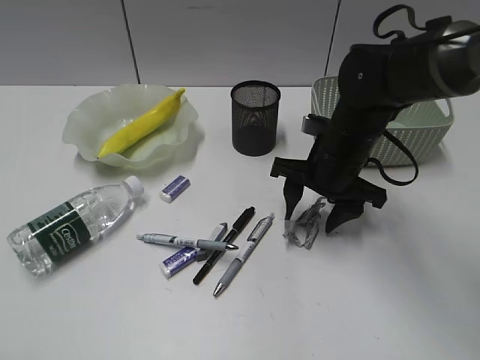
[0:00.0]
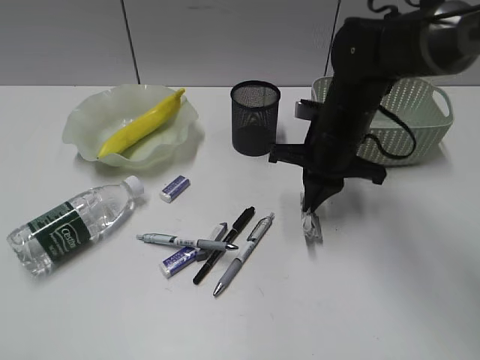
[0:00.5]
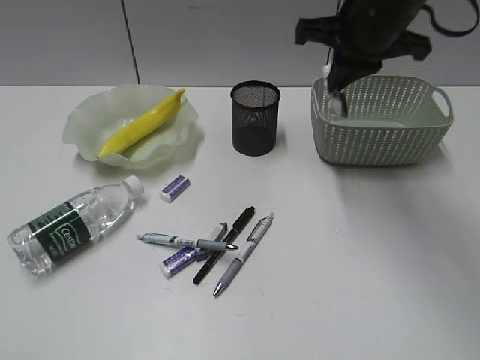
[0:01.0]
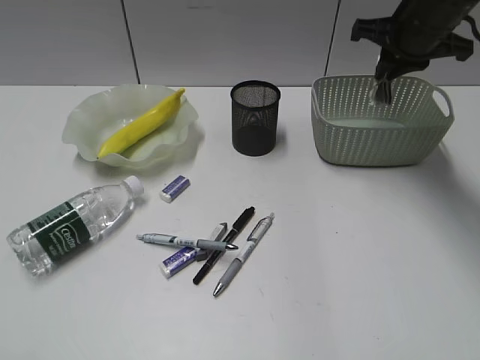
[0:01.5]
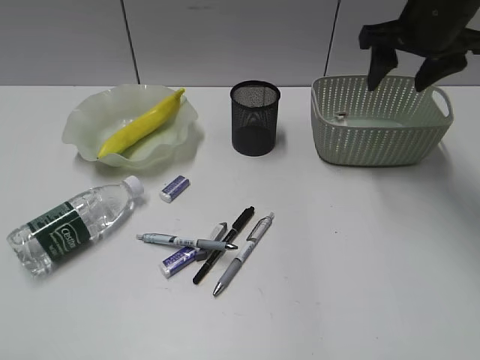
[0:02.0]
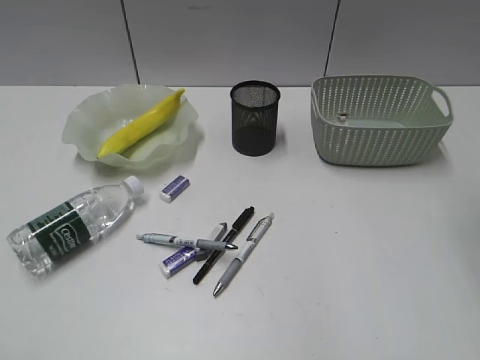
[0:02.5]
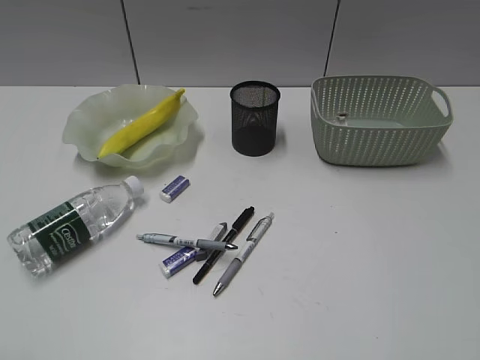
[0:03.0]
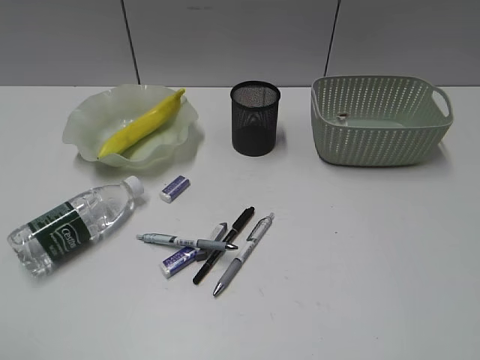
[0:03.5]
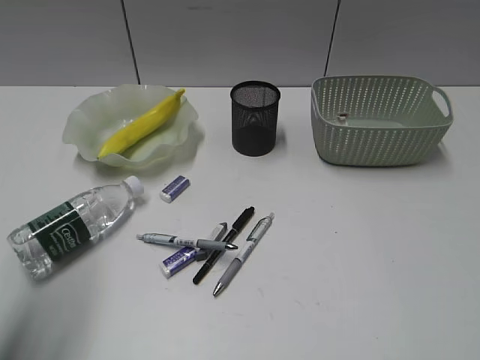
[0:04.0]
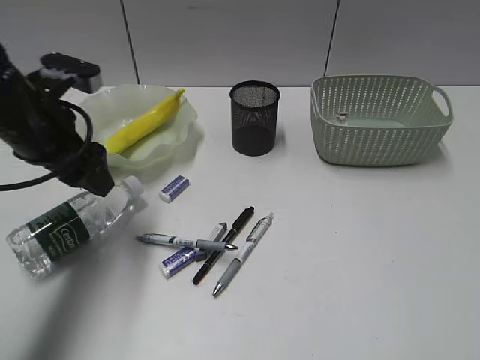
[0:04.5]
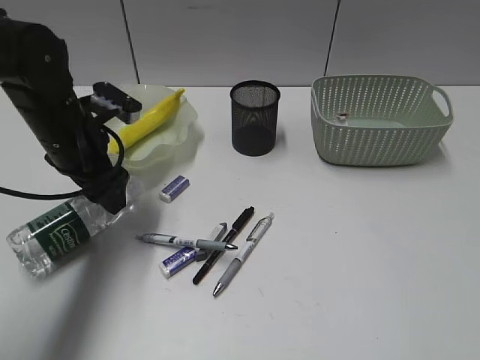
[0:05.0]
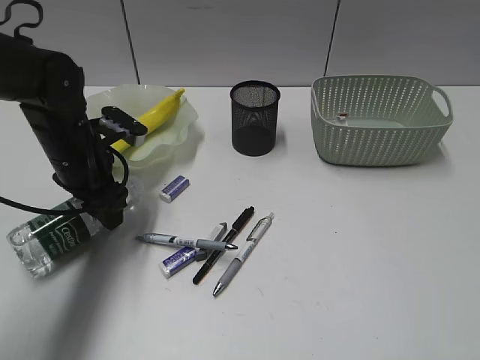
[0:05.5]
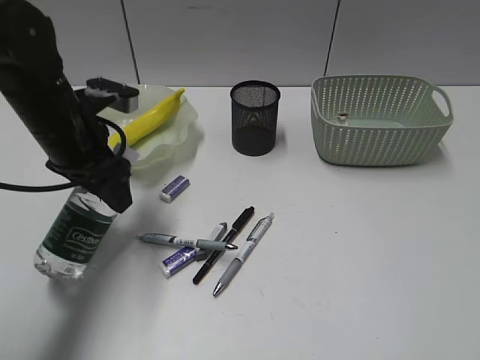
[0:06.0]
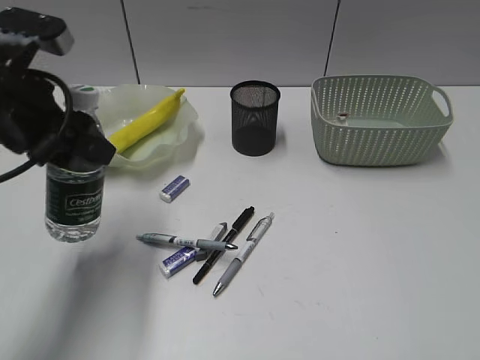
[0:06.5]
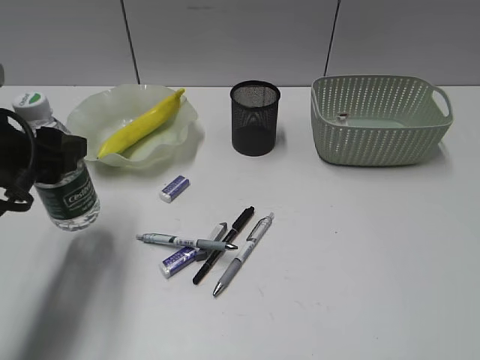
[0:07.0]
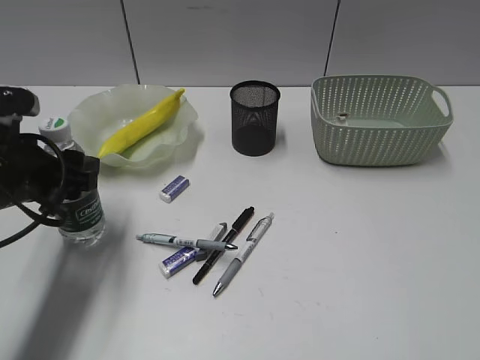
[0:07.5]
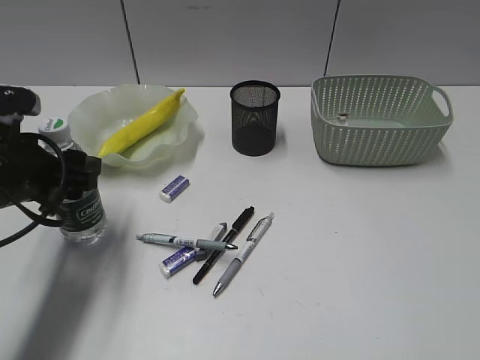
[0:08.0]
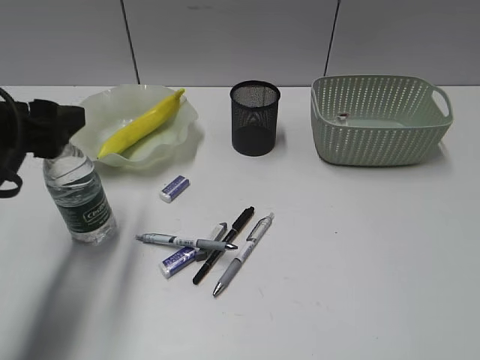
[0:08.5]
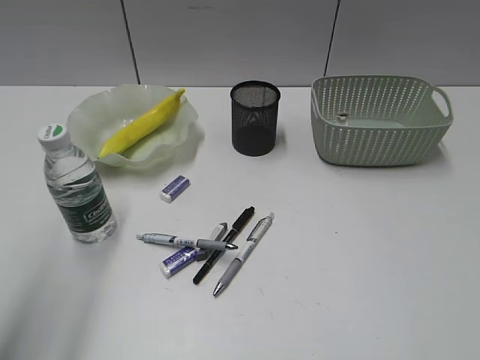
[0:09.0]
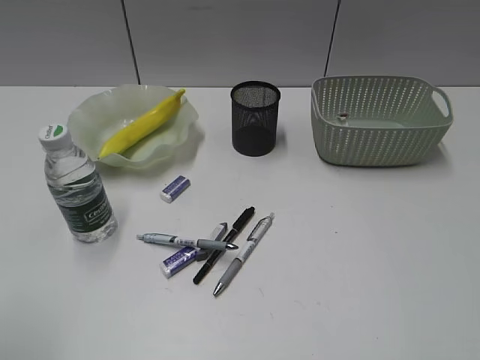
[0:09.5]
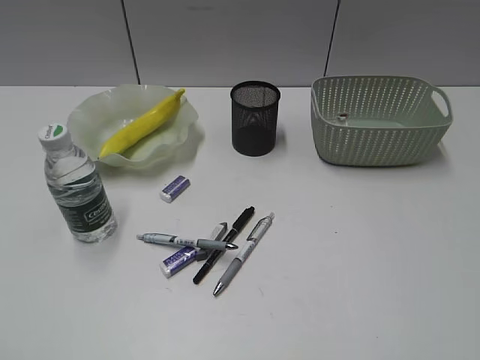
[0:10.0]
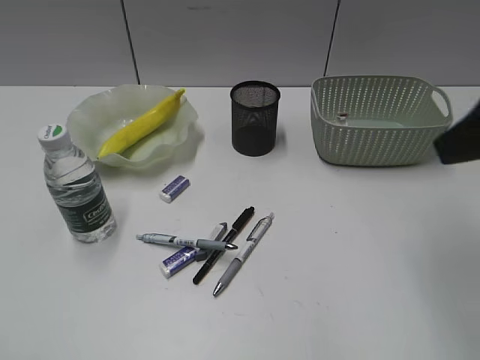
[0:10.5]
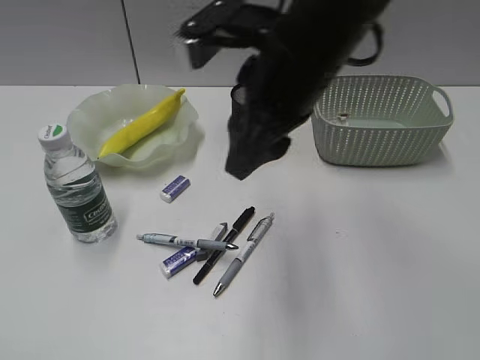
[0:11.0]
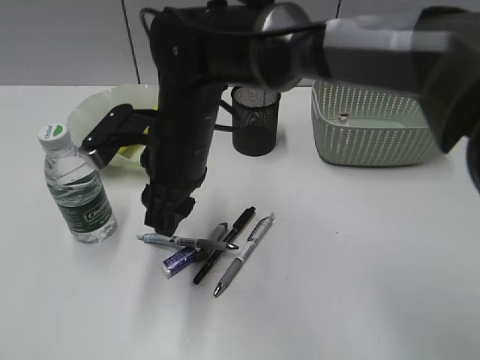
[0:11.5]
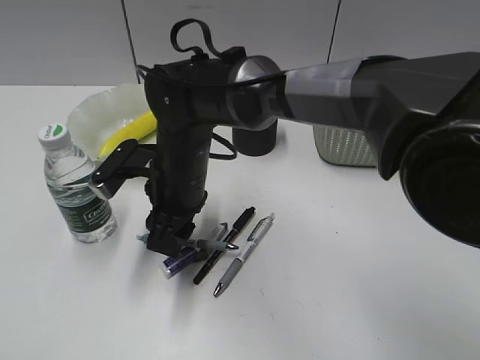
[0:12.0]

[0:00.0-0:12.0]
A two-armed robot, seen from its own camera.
Step, 0:00.5 to 0:01.5: Place the waste paper in the basket with right gripper.
Step, 0:02.0 to 0:05.0: Grasp the bottle with left gripper.
Step, 0:05.5 to 0:08.5: Stand the bottle with left gripper.
0:00.0 to 0:02.0: The right gripper heads upward, to the right and forward, covering approximately 20 cm, and closes, then reopens.
0:02.0 to 0:04.0: The left gripper is displaced forward by approximately 15 cm. Meanwhile the right gripper travels backward by some 40 cm, and closes.
0:04.0 to 0:06.0: The left gripper heads forward, downward and to the right, covering approximately 25 cm.
0:06.0 to 0:08.0: The left gripper travels backward by approximately 10 cm.
0:08.0 to 0:10.0: The left gripper goes about 30 cm backward and upward.
0:10.0 to 0:12.0: The right gripper shifts some 50 cm to the left, forward and downward.

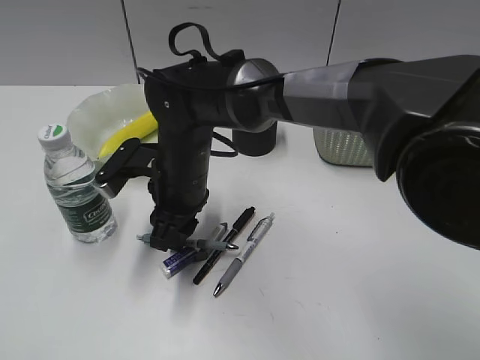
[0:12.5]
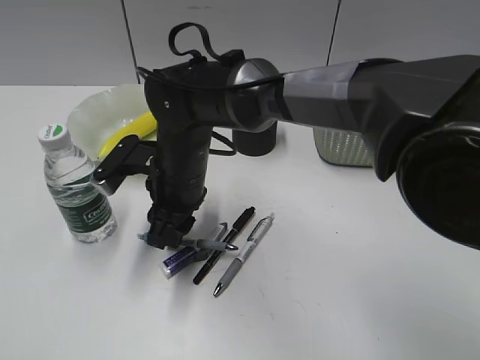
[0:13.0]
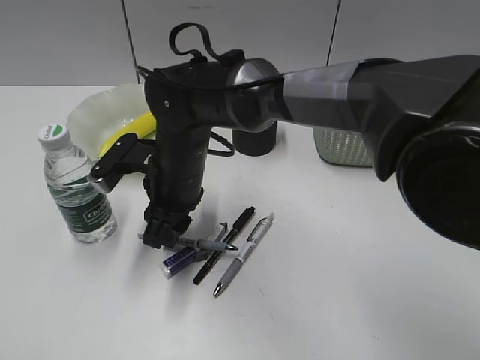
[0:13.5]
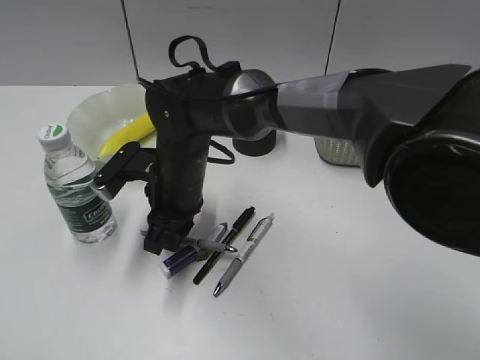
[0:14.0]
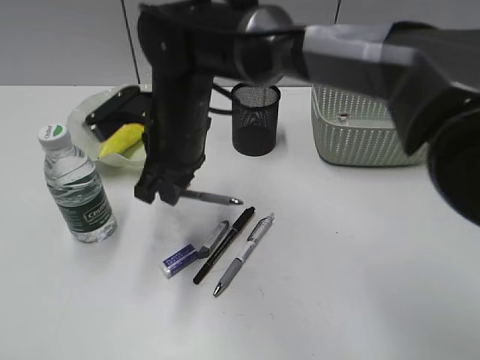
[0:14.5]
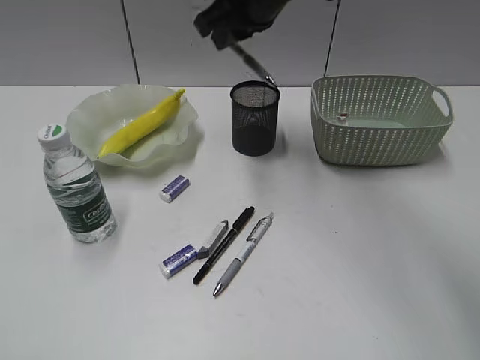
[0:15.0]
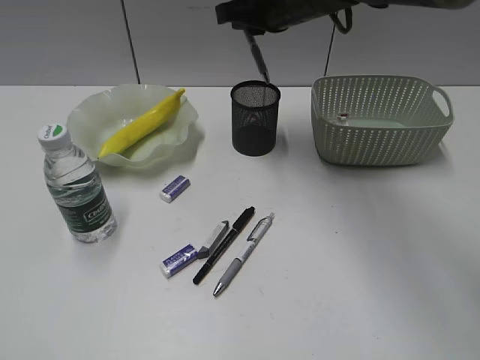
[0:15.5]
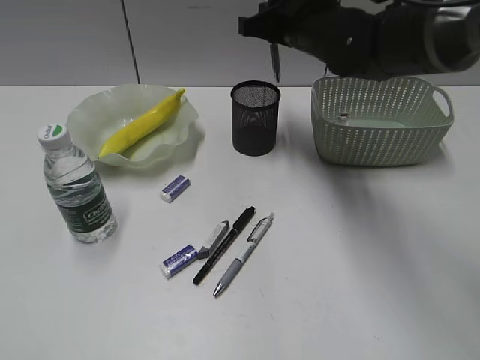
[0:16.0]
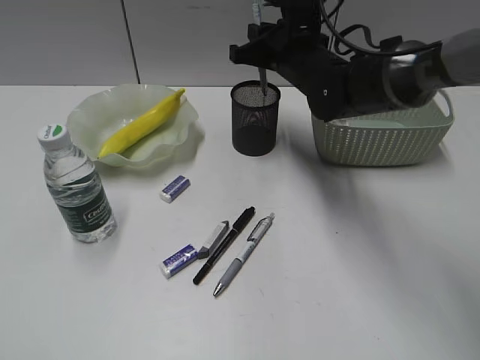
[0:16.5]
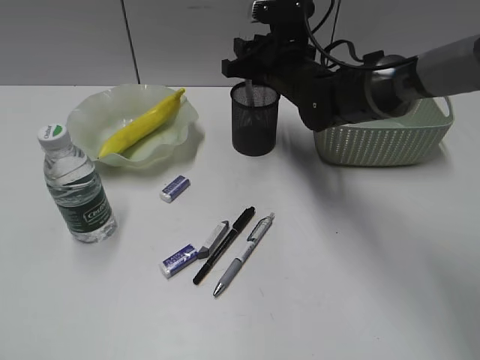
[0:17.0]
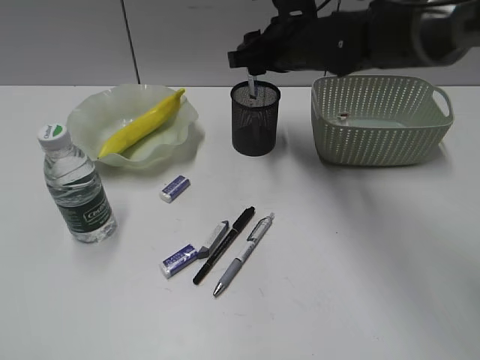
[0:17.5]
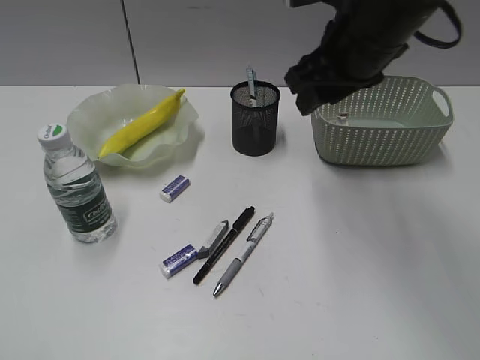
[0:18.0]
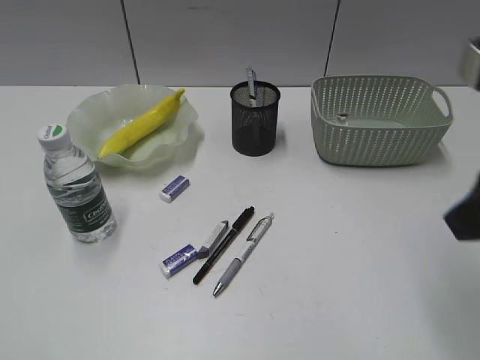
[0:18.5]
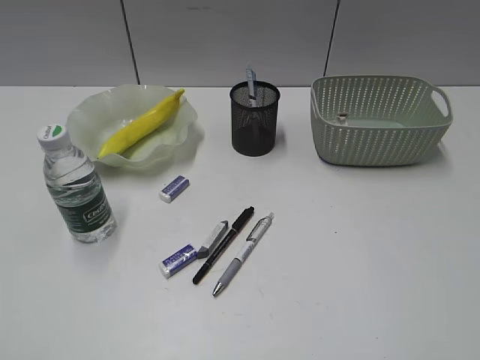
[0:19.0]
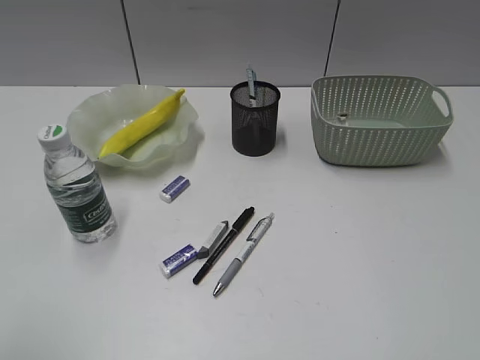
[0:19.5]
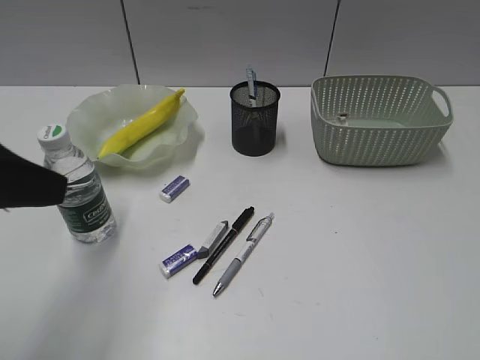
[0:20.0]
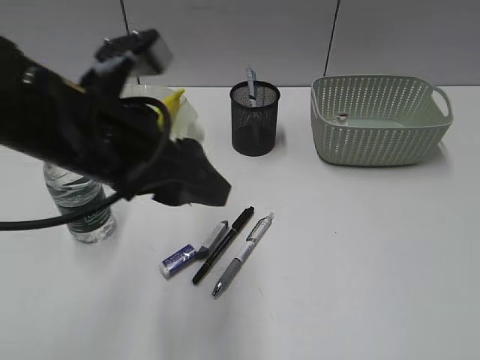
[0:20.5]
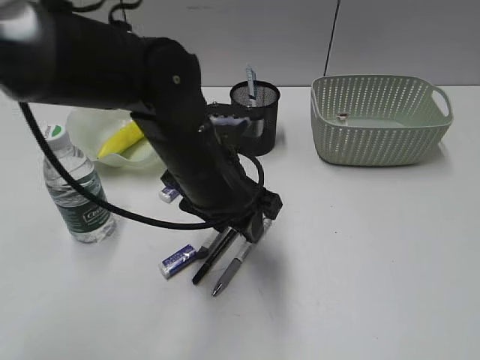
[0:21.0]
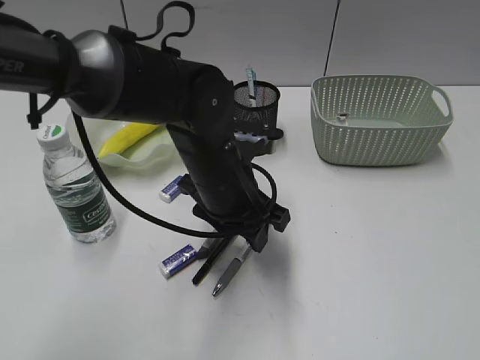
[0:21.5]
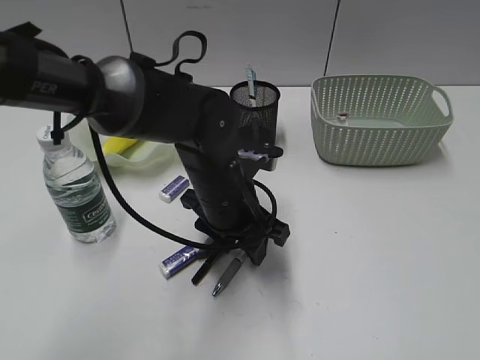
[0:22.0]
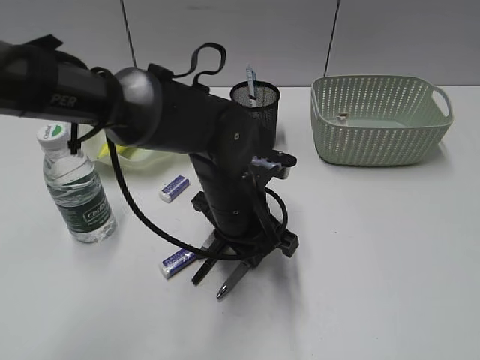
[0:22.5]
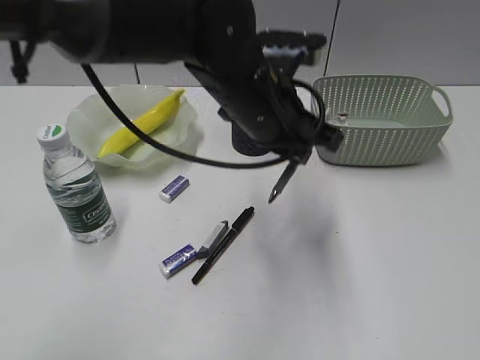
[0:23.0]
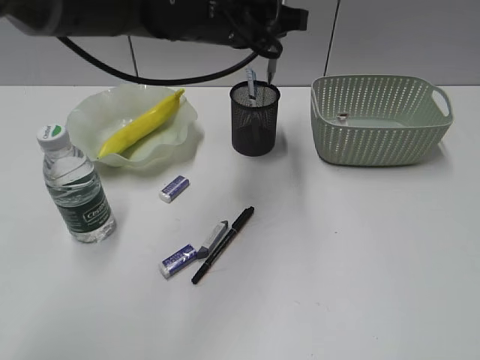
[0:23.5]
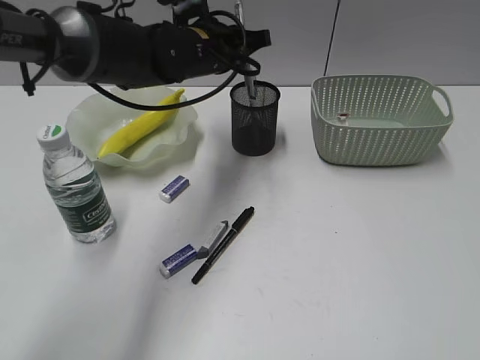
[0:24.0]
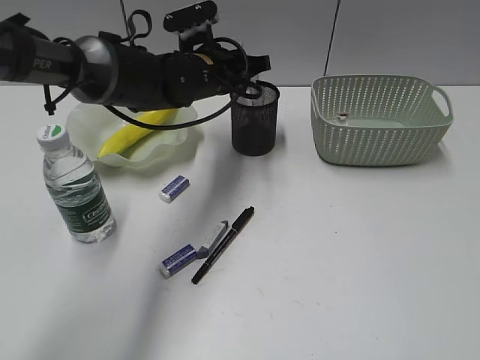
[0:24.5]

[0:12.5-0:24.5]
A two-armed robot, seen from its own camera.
Step, 0:14.5 to 0:17.0: Place the blue pen in pen holder with right gripper.
Step, 0:17.5 to 0:22.5: Grasp the gray pen with left gripper.
0:12.5 to 0:14.5: The right gripper closes its fingers.
0:14.5 to 0:16.5: The right gripper travels to the right and forward by some 20 cm.
0:16.5 to 0:18.5: The right gripper heads backward, to the right and upward, covering some 30 cm, and opens its fingers.
0:18.5 to 0:20.5: The right gripper heads backward and to the right, covering roughly 20 cm, while the left gripper moves forward and to the right, about 30 cm.
0:20.5 to 0:22.5: The left gripper heads downward, to the right and forward, covering about 20 cm, and closes.
0:22.5 to 0:24.5: The left gripper moves forward, about 15 cm.

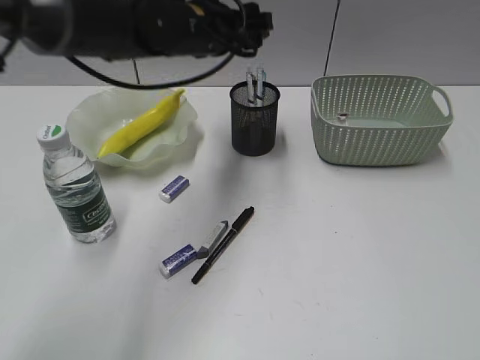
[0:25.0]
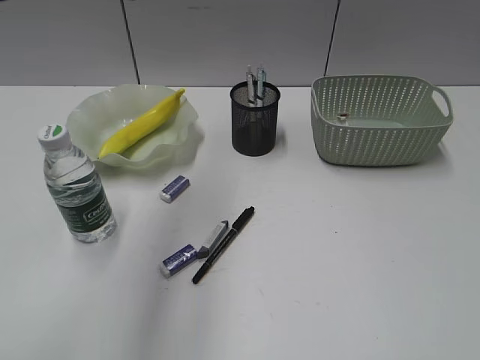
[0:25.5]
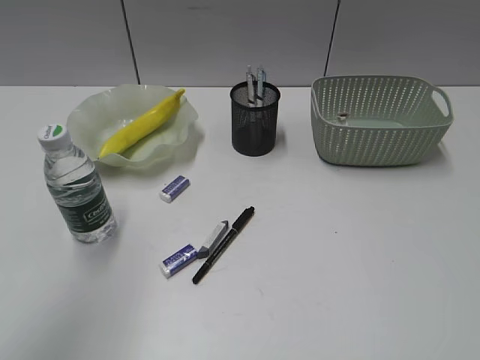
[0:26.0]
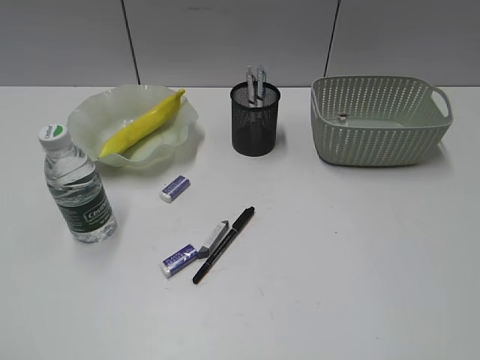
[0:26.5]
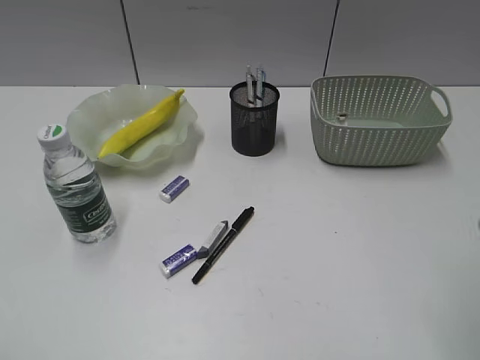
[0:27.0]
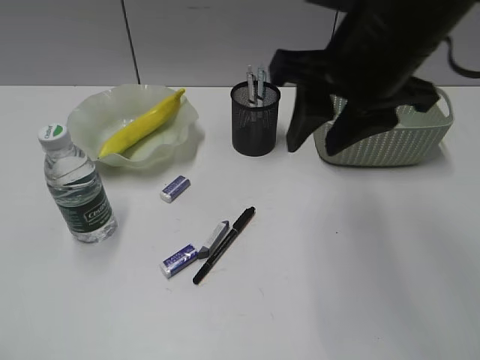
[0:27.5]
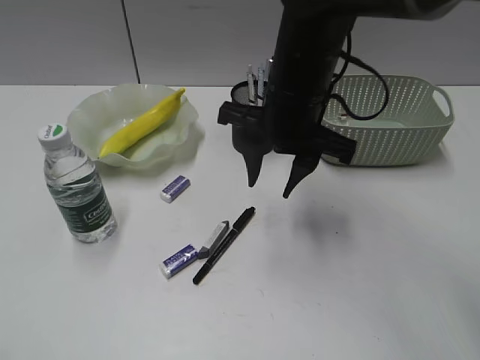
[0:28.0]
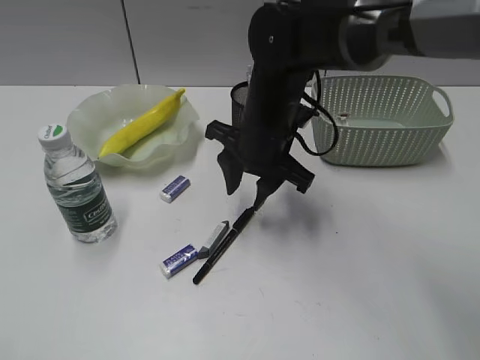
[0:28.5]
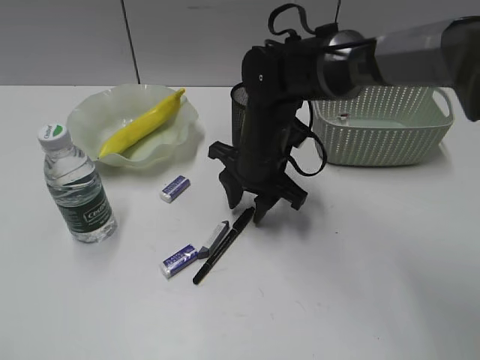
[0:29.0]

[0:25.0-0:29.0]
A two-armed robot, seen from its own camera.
0:25.0 to 0:27.0: The right gripper travels forward and to the left by about 10 cm. The left gripper moves backward and to the left, about 50 cm, and closes up.
0:27.0 to 0:29.0: The right gripper is displaced forward, to the left and downward by roughly 40 cm.
